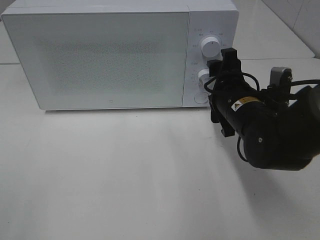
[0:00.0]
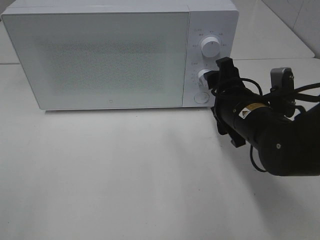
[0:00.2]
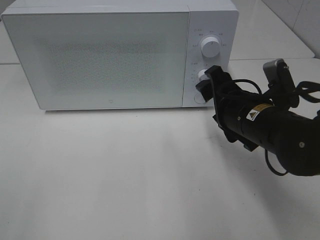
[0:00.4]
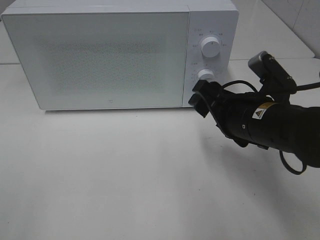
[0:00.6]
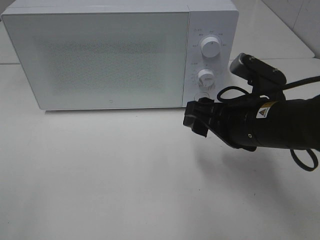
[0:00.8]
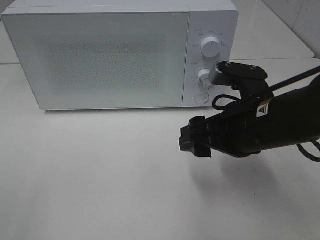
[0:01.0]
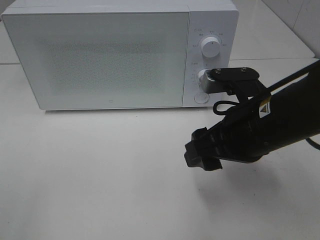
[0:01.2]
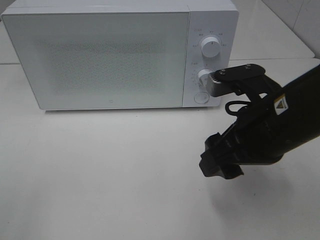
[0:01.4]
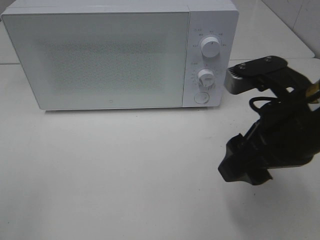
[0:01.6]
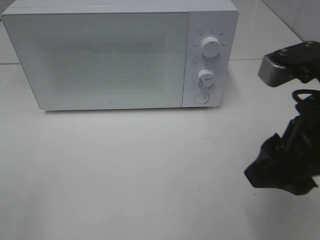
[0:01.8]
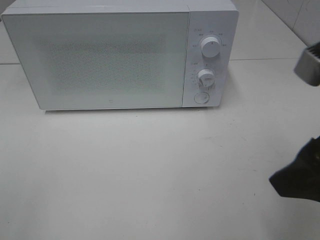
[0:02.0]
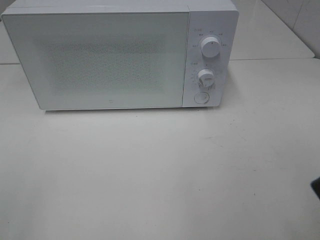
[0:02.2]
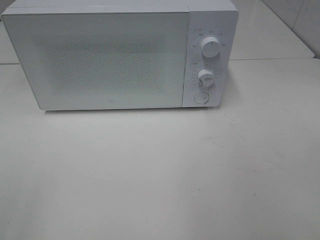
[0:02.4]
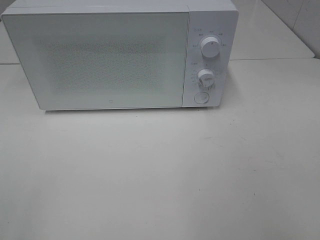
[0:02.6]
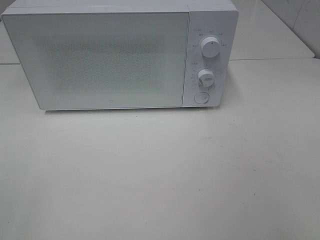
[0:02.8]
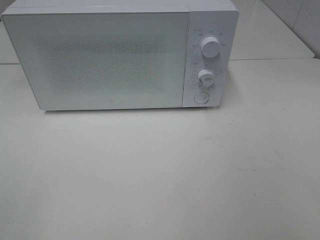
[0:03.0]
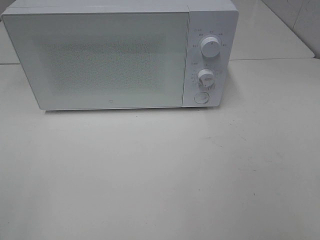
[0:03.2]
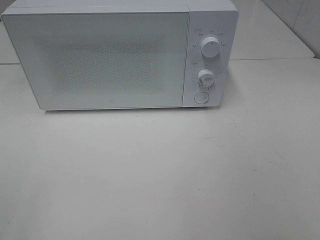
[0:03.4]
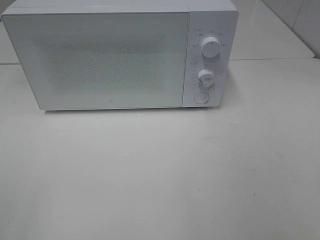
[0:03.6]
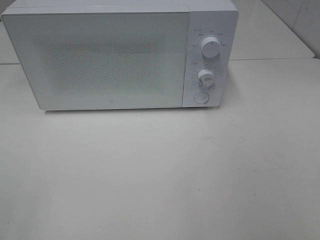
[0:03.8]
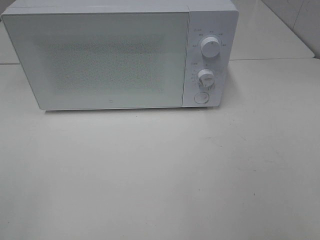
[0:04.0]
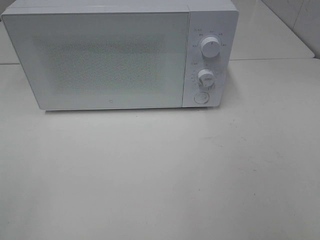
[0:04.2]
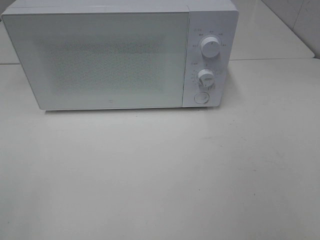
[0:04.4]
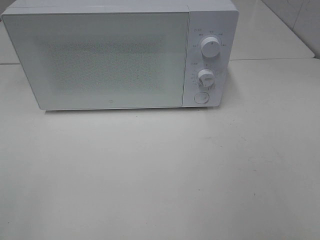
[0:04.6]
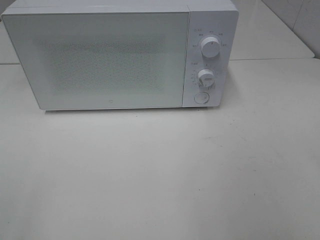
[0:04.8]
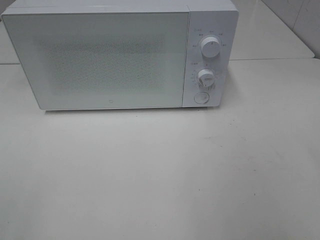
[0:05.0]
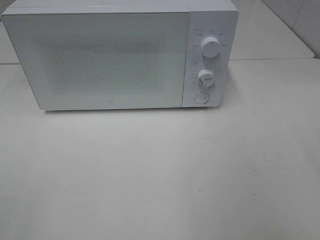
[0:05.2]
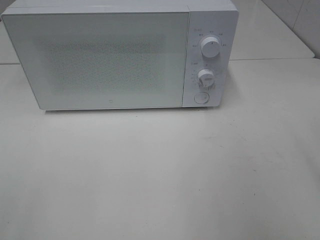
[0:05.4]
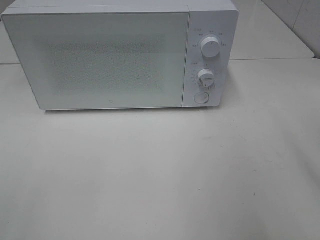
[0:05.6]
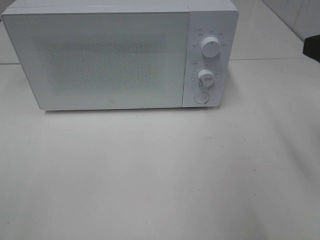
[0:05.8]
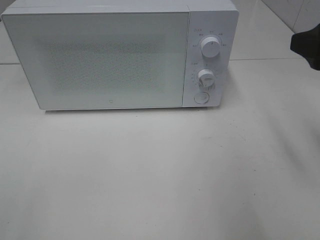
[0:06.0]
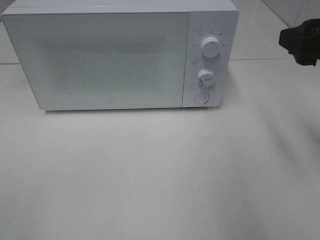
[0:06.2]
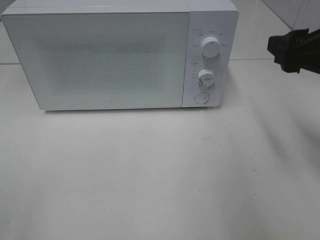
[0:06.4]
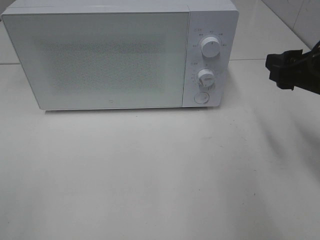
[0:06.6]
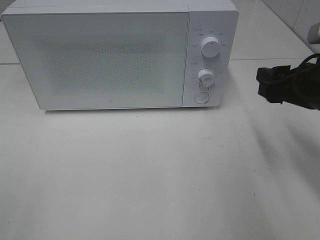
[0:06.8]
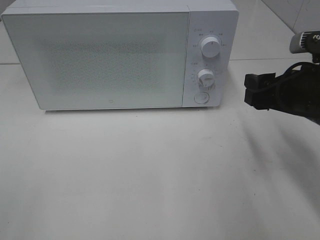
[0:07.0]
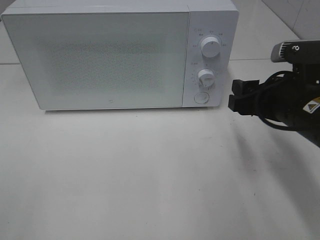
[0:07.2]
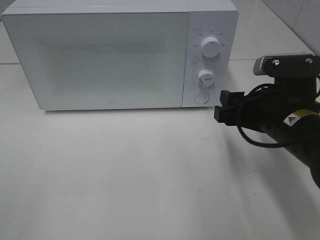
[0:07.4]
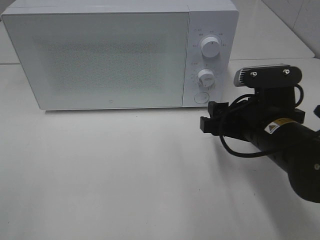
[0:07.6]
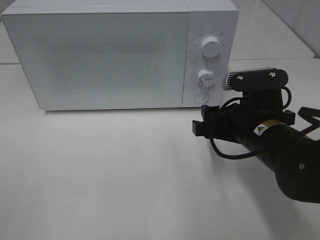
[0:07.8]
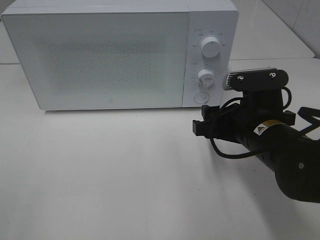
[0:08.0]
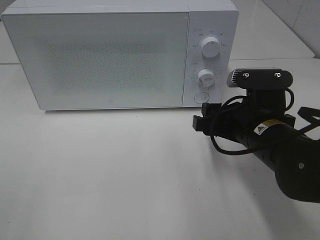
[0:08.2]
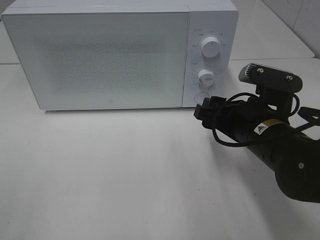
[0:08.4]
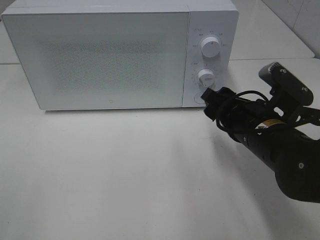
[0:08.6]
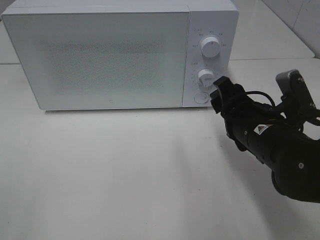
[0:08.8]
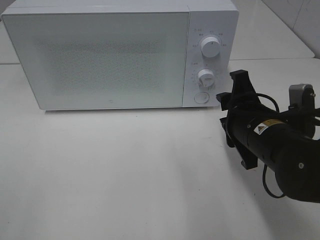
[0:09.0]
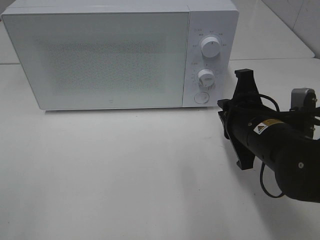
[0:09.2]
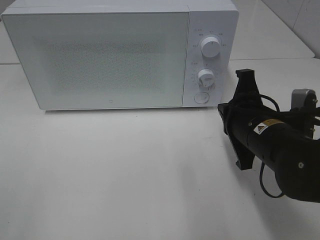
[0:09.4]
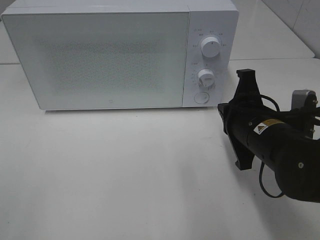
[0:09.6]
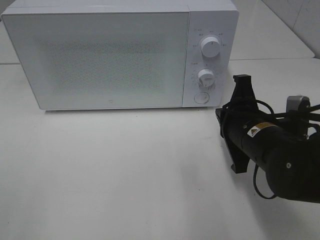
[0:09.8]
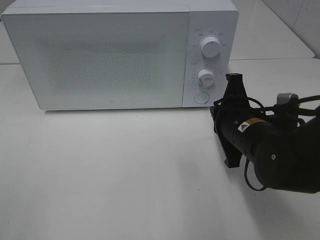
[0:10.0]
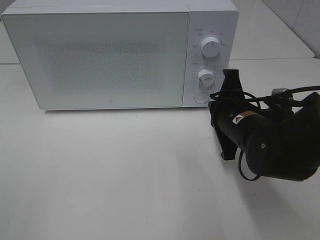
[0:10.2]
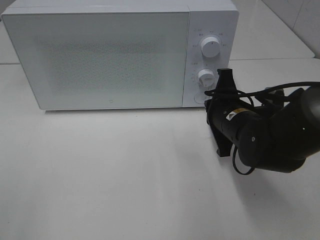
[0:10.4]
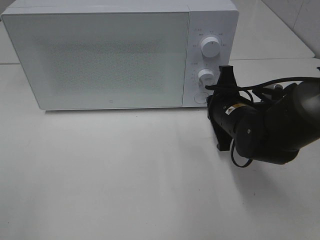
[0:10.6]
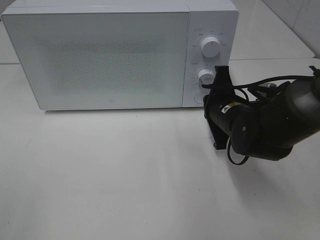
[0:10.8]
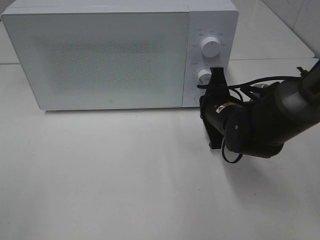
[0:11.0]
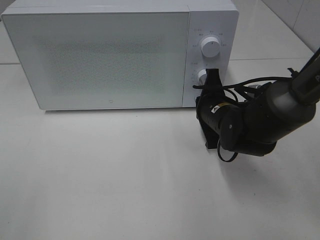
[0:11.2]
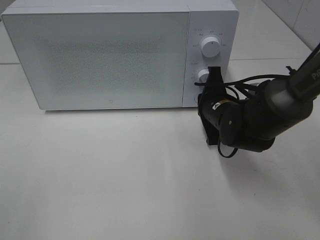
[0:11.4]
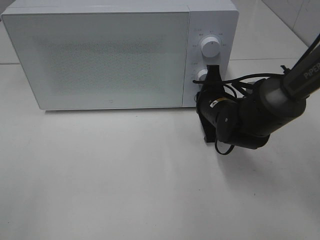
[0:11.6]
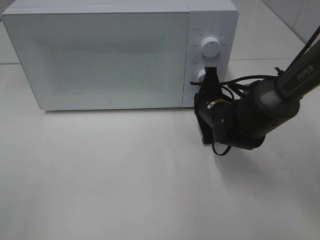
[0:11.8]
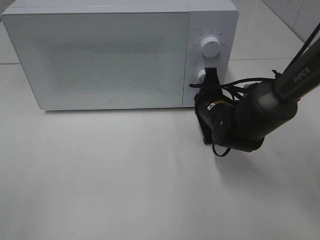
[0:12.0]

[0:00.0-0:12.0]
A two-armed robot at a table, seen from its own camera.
Task of the whole recording: Heat Sandwich.
0:00.0 to 0:01.6: The right gripper is displaced backward and upward by roughly 15 cm.
0:01.6 to 0:03.0: The right gripper goes roughly 20 cm backward and to the right.
0:04.4 to 0:06.0: The right gripper shifts approximately 20 cm forward.
0:06.0 to 0:07.6: The right gripper heads downward and to the left, covering approximately 15 cm.
0:09.0 to 0:10.4: The right gripper heads forward, covering roughly 5 cm, and closes its fingers.
0:10.4 to 0:12.0: The right gripper moves forward, approximately 5 cm.

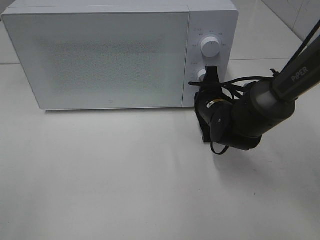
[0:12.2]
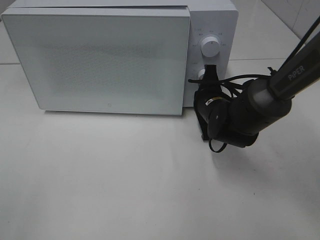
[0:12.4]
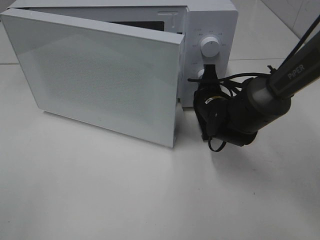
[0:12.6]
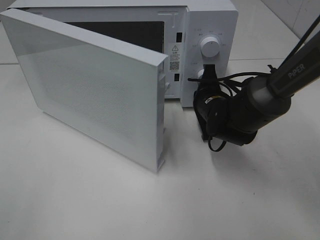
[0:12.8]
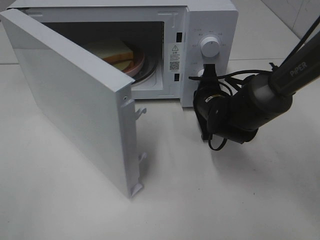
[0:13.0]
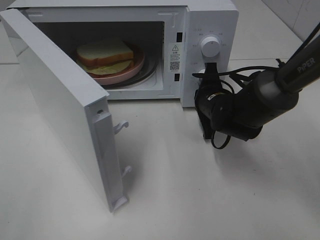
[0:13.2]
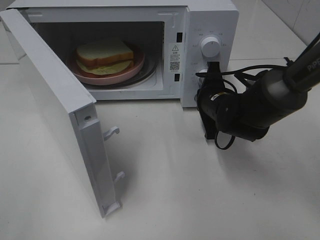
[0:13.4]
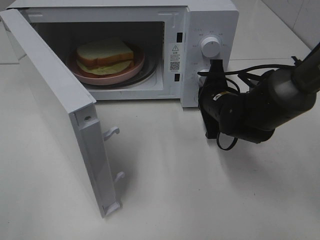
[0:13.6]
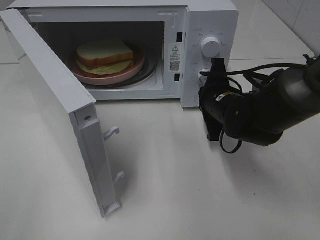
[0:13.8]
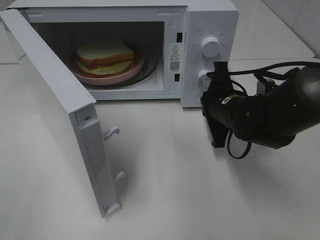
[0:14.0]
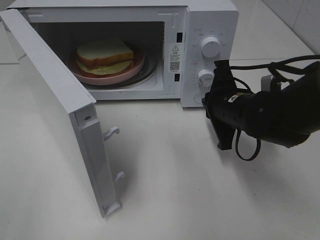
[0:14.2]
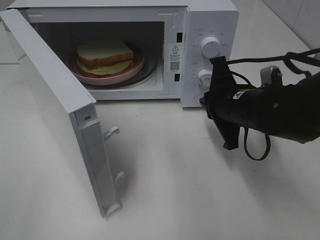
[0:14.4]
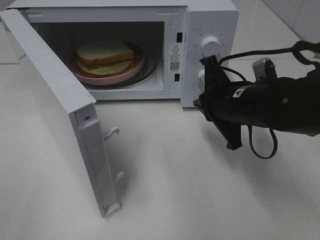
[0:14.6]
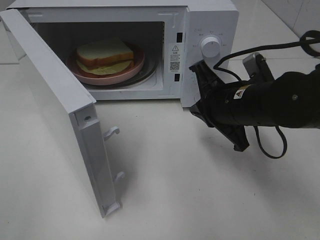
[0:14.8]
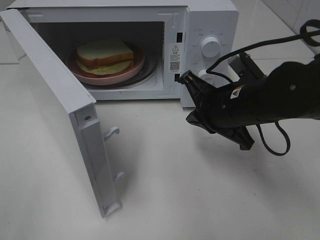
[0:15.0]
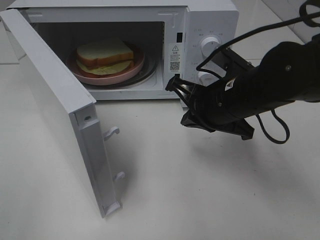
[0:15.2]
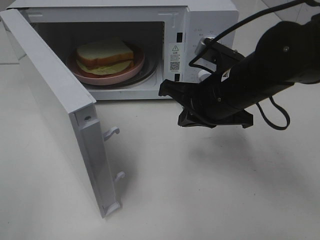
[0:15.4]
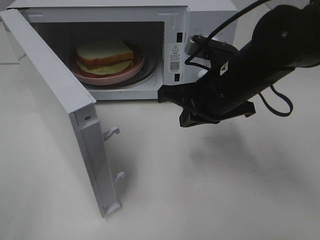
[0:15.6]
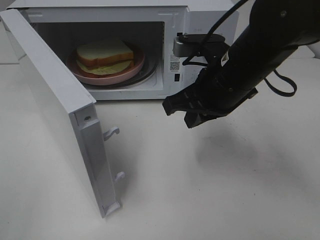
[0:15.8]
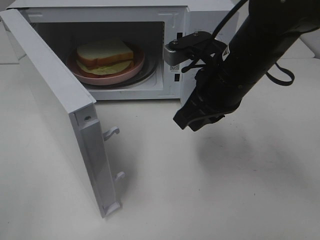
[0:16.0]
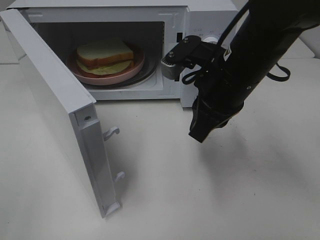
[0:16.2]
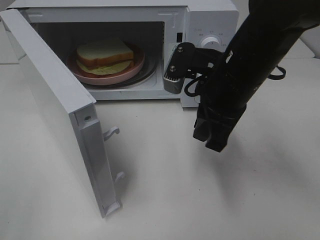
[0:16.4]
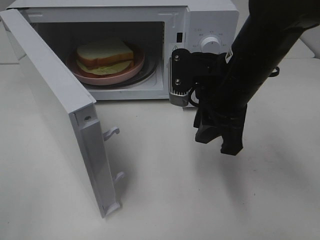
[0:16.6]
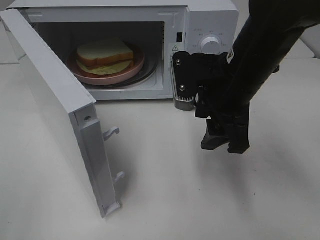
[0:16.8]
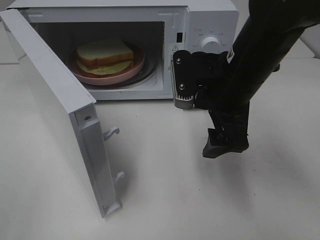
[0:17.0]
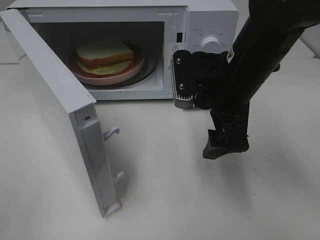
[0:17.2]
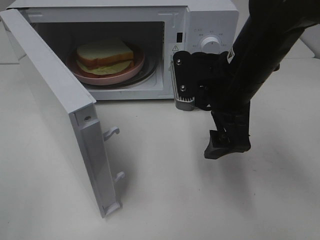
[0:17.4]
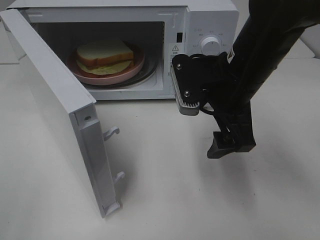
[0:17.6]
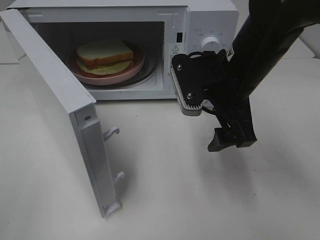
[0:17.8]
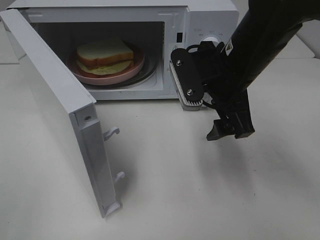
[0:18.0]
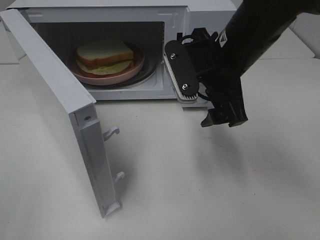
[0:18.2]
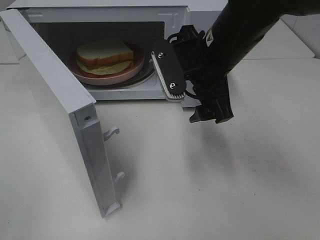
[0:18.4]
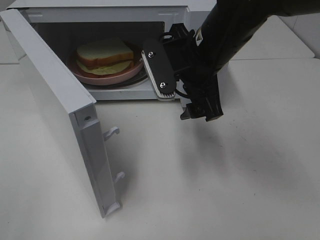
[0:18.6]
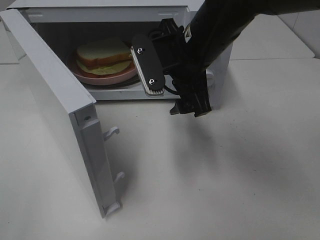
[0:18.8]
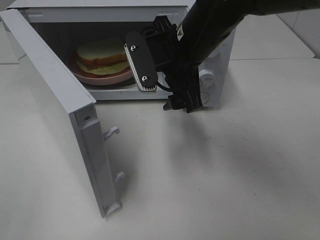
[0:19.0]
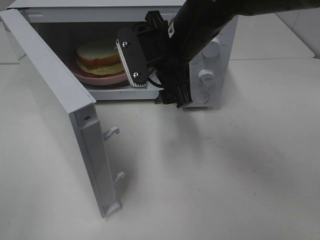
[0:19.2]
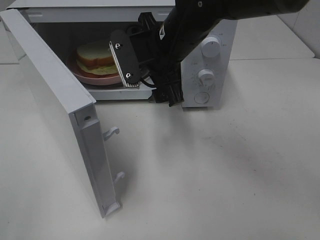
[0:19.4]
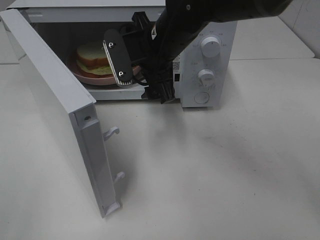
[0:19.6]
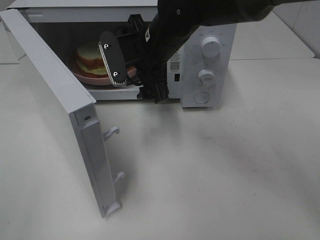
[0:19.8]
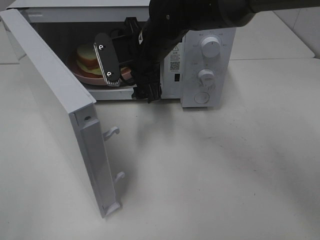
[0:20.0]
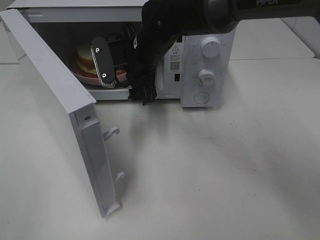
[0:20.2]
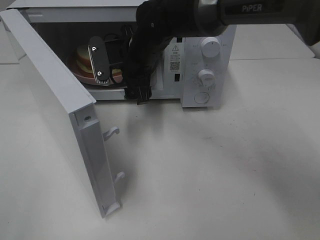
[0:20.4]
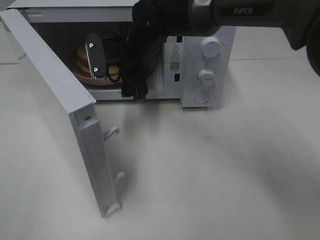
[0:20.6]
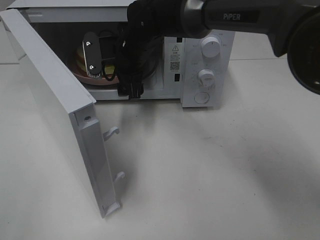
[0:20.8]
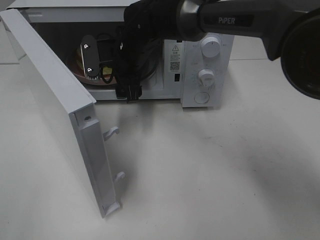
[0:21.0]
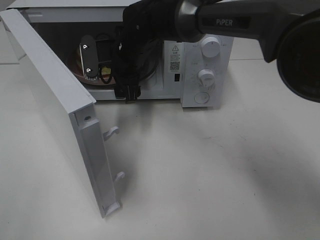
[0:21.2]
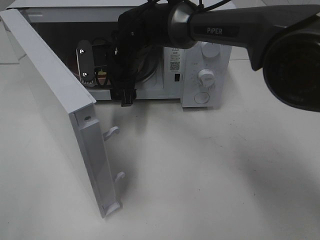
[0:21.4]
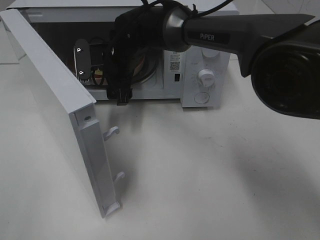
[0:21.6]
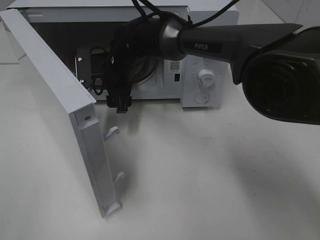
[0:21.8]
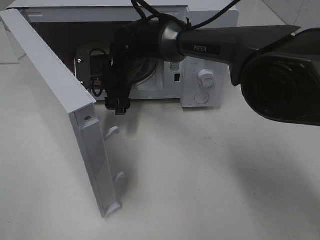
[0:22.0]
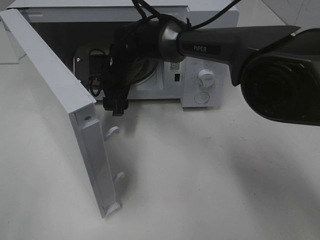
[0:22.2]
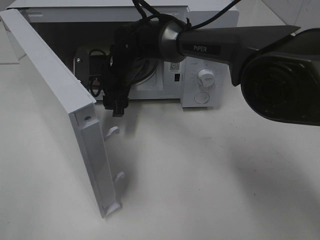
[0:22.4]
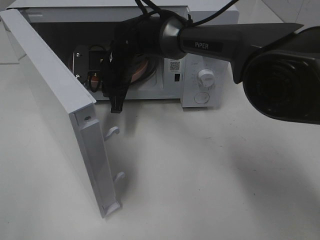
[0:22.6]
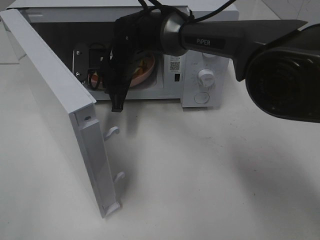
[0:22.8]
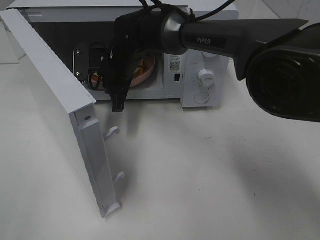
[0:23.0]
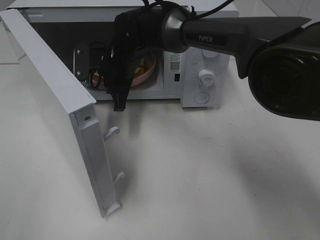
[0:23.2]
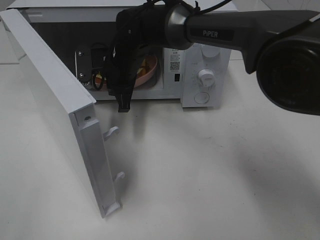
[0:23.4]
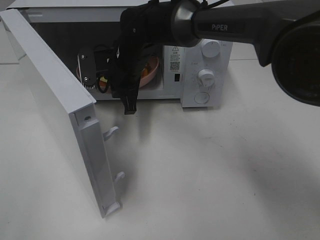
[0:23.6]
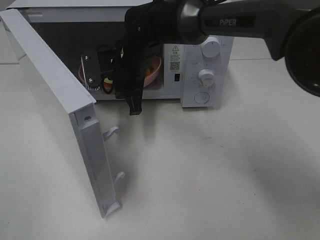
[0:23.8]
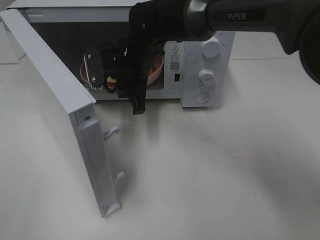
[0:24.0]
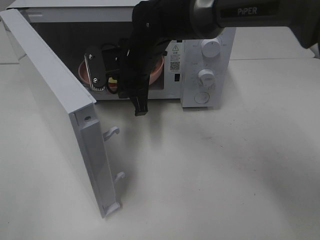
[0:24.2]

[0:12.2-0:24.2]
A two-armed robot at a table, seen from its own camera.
Task of the whole recording: Heat Sandwich.
Step, 0:12.2 to 0:14.4: Right hand: press the switch.
Step, 0:14.6 to 0:23.0: Right hand: grab the plate with the sandwich.
0:13.8 to 0:15.2: The right gripper heads upward and backward, covering about 10 cm.
0:16.6 to 0:18.2: The right gripper opens up.
0:18.2 to 0:19.8: The right gripper is displaced to the left and forward by some 10 cm.
0:19.8 to 0:21.2: The right gripper travels forward by approximately 5 cm.
0:21.2 to 0:22.6: The right gripper closes.
0:22.6 to 0:24.2: The right gripper changes place by about 5 cm.
